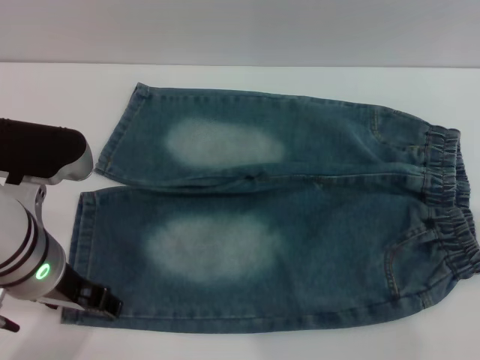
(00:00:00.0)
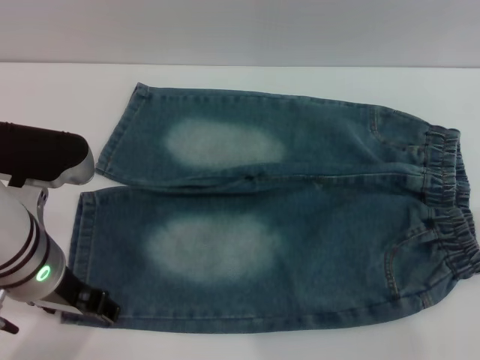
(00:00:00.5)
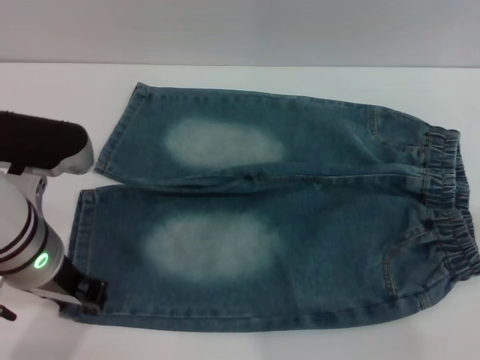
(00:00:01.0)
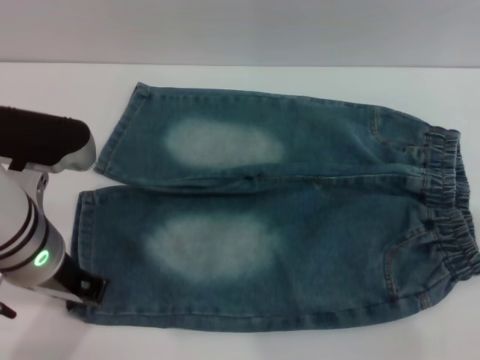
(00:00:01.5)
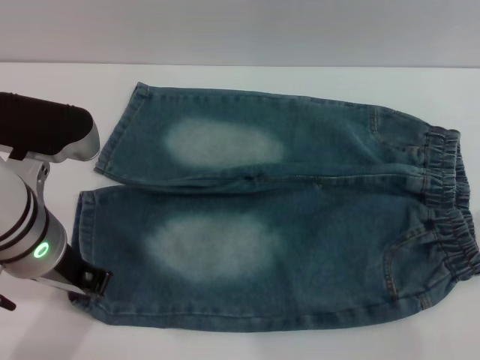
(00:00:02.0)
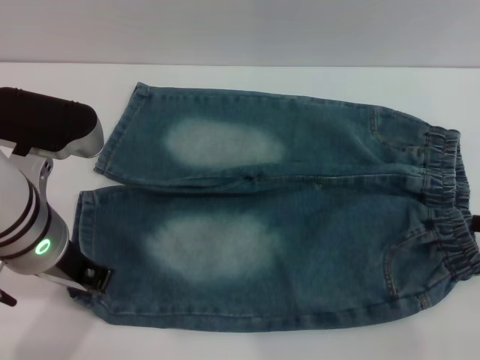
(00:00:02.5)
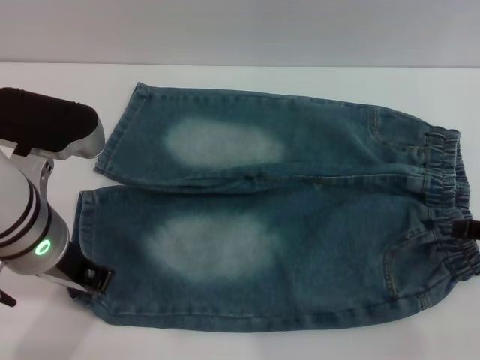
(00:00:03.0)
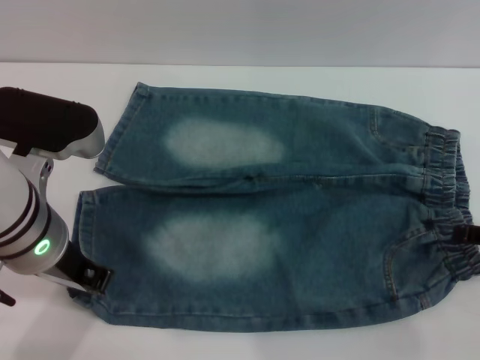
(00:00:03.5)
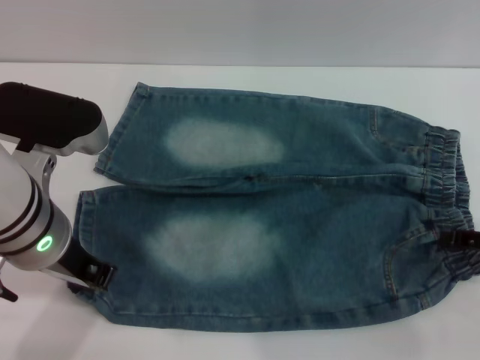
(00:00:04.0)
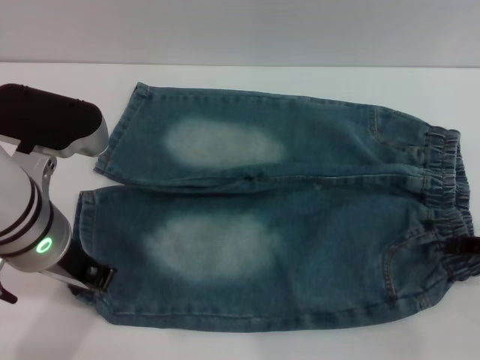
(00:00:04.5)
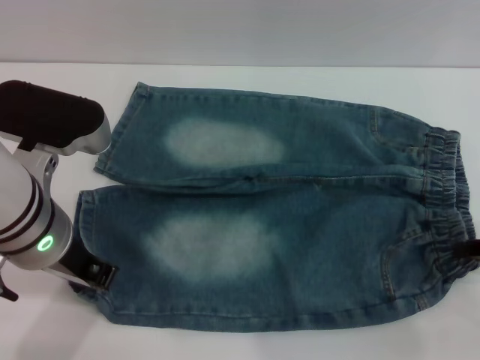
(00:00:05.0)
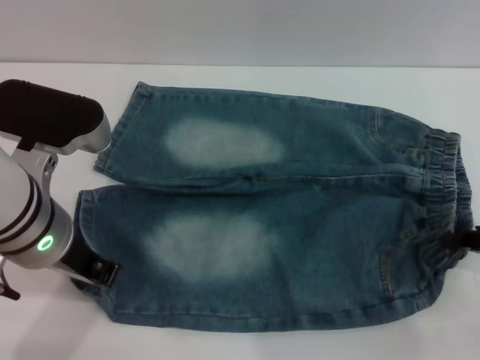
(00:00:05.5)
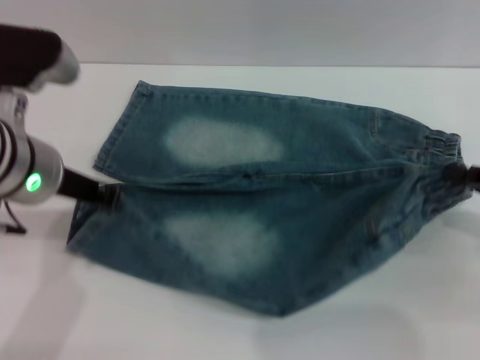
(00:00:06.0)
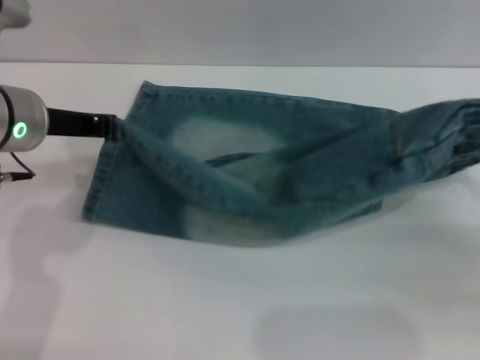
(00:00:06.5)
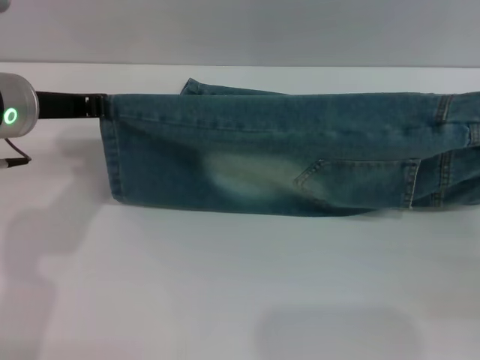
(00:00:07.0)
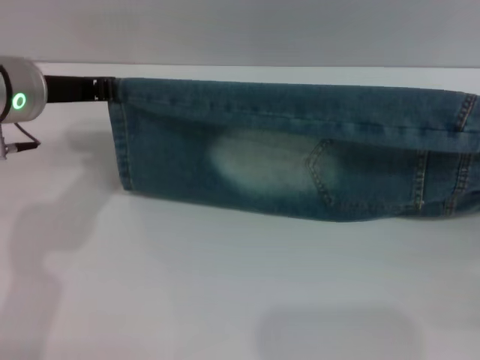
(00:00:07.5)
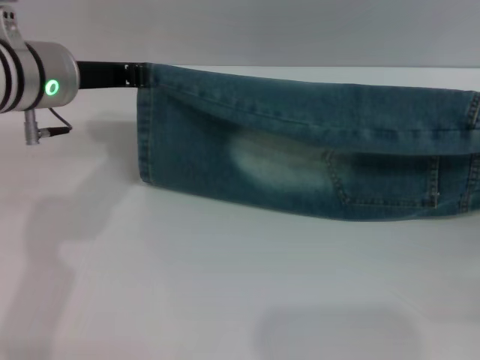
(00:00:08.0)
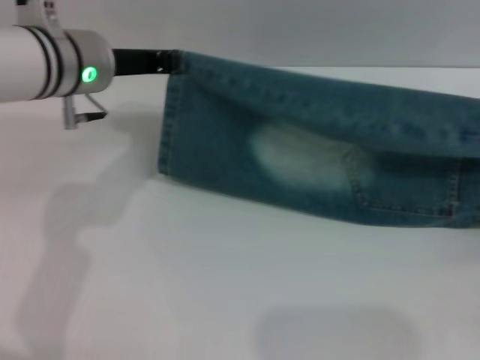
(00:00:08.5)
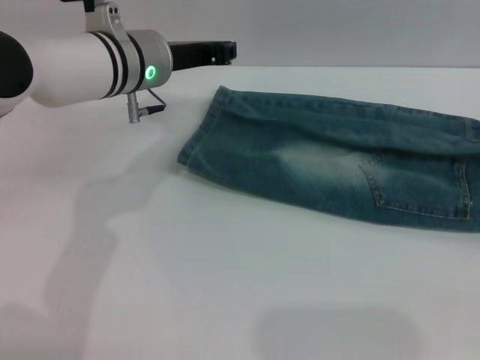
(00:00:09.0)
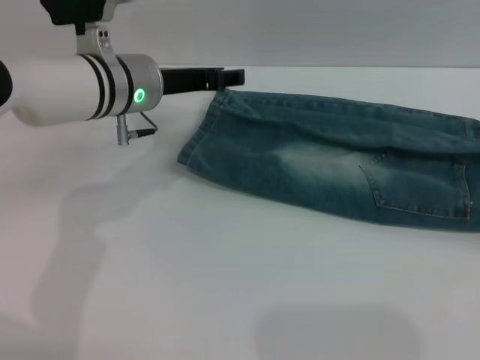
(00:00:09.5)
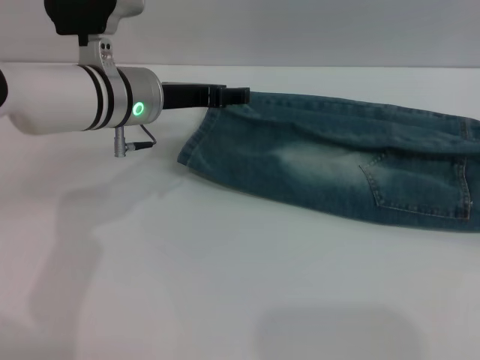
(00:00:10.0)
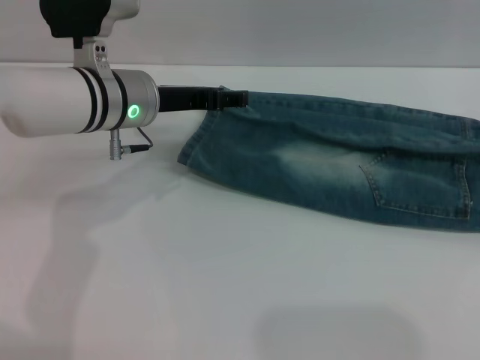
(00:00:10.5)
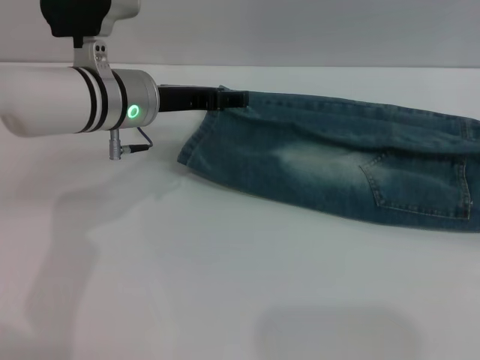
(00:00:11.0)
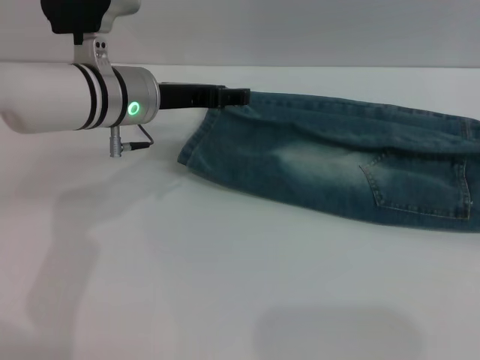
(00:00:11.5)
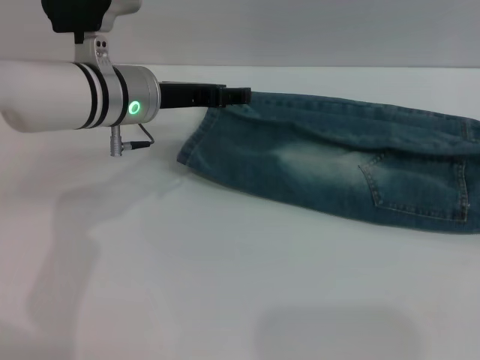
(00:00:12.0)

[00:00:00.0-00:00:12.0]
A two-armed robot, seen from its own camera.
Step, 00:00:00.0 to 00:00:09.0: Fold the bottom of the pants upward with both grippers.
00:00:00.0 to 00:00:02.0: The left gripper closes its fingers.
00:00:04.0 to 00:00:06.0: The right gripper closes.
00:00:06.0 to 00:00:08.0: The left gripper goes some 5 cm forward; the right gripper moves downward, about 5 cm.
00:00:08.0 to 00:00:10.0: The left gripper shifts about 10 cm downward and to the right, and opens its fingers. The right gripper shifts some 5 cm backward, and opens its fingers.

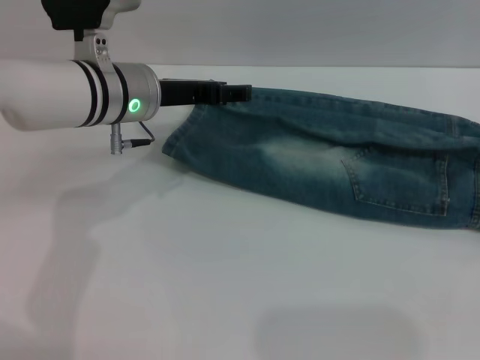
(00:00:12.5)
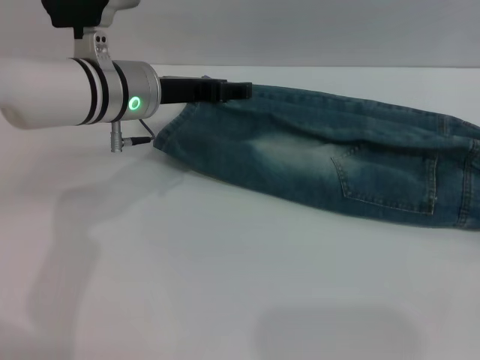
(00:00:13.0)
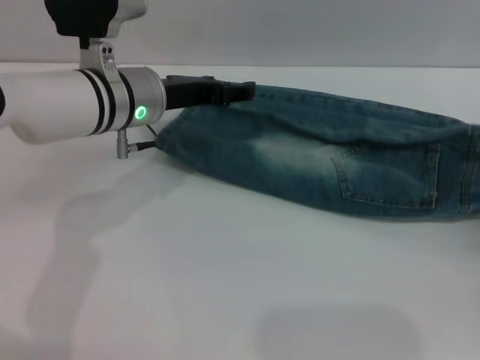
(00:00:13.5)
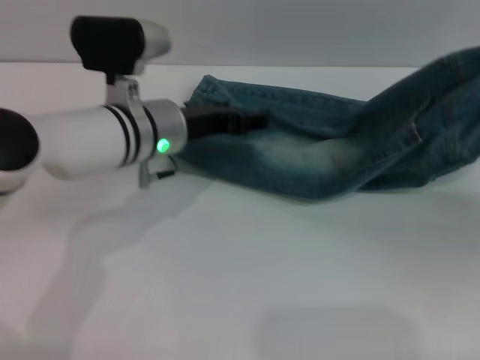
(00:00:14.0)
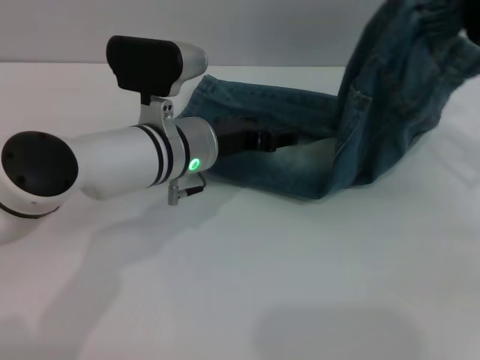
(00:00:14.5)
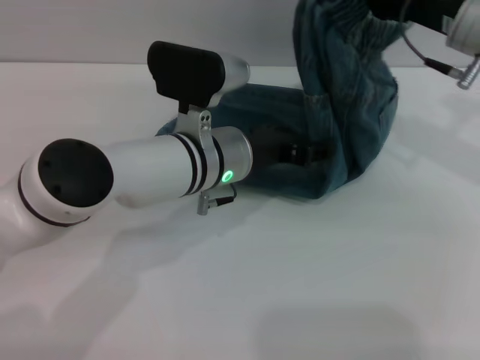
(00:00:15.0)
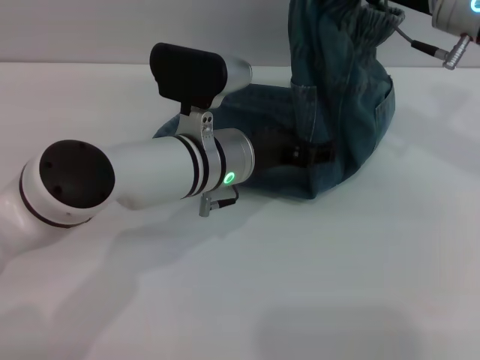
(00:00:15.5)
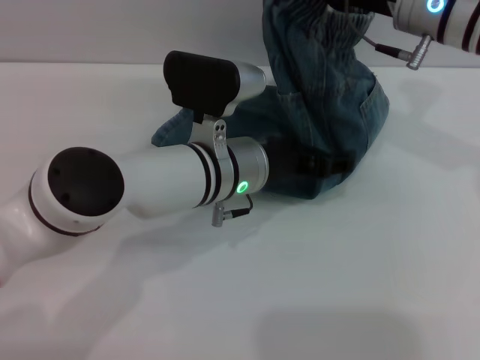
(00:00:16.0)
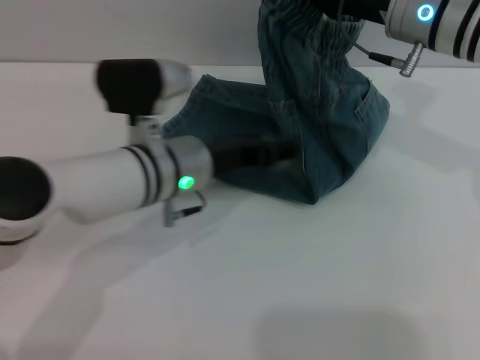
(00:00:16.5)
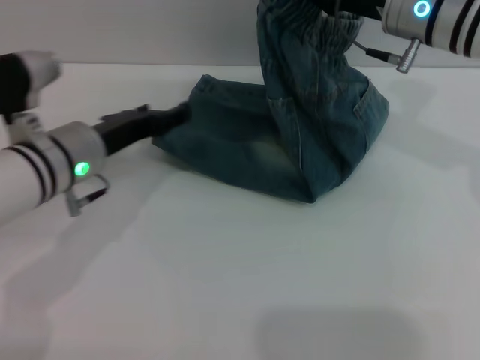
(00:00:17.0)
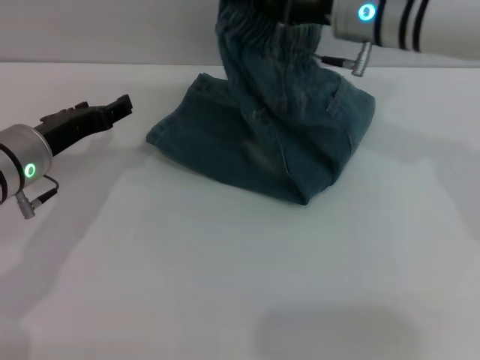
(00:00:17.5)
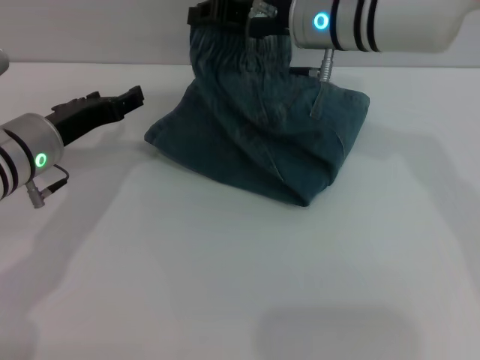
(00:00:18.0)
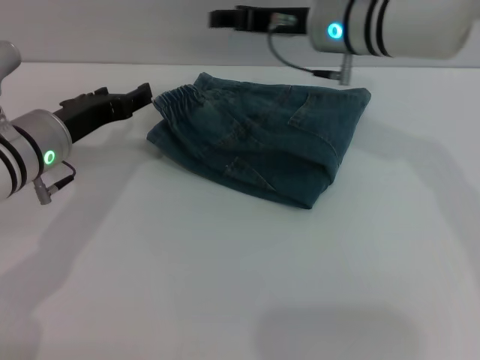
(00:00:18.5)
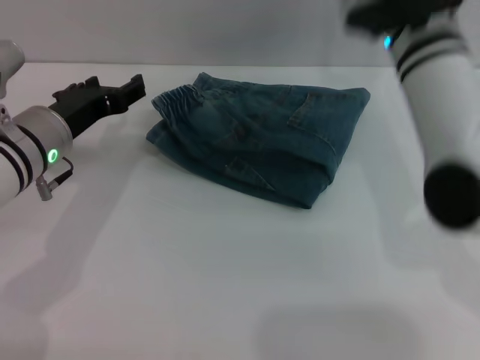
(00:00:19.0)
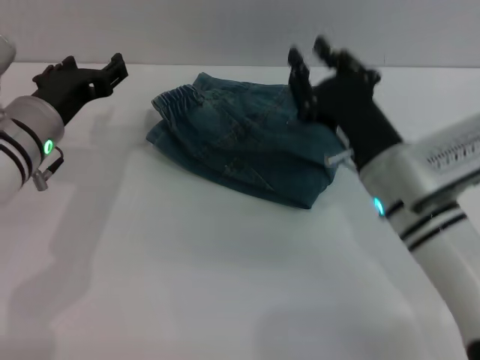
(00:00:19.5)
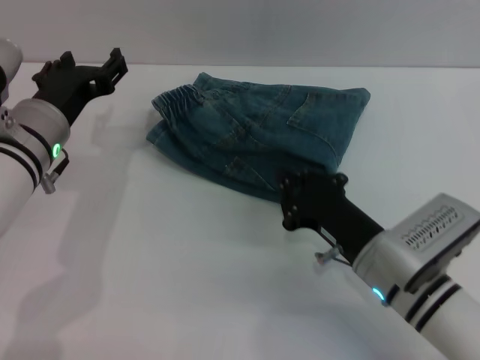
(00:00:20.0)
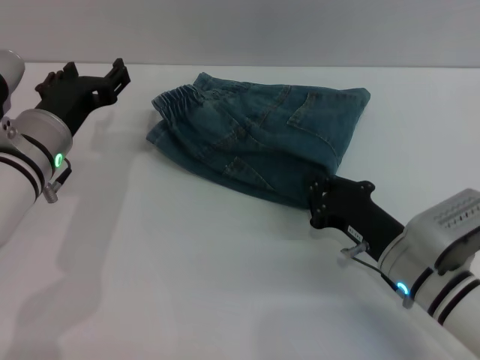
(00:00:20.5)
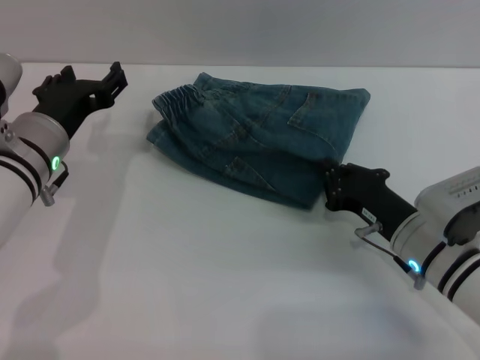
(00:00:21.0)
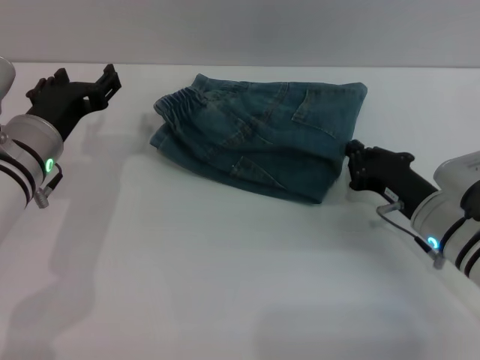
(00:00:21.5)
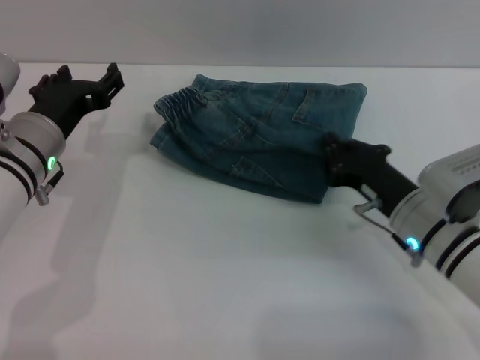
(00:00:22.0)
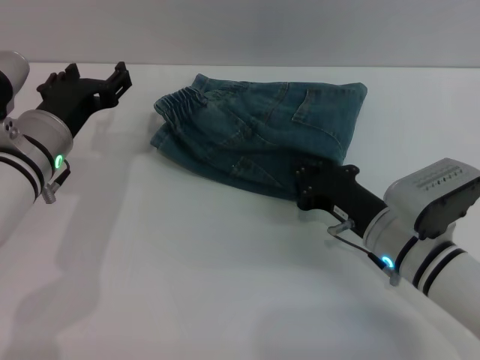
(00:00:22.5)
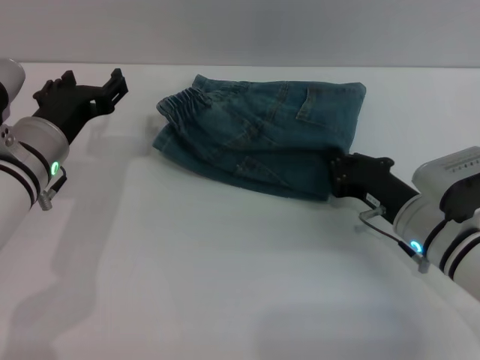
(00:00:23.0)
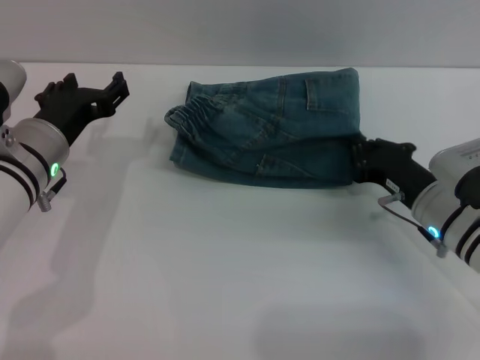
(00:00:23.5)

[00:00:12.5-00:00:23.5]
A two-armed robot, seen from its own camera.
Step, 00:00:12.5 to 00:00:18.0: Fold the pants from right to left with the right gripper.
00:00:12.5 to 00:00:14.5: The right gripper is displaced forward, upward and to the left by some 25 cm, and closes. Meanwhile the left gripper travels to the right by approximately 5 cm.
00:00:14.5 to 00:00:16.0: The left gripper moves about 5 cm. The right gripper shifts roughly 15 cm to the left and forward.
00:00:16.0 to 00:00:18.0: The right gripper heads to the left, covering roughly 10 cm; the left gripper shifts some 20 cm to the left.
00:00:18.0 to 00:00:20.0: The right gripper travels backward and downward by some 25 cm, and opens and closes again.
00:00:20.0 to 00:00:21.5: The right gripper travels to the right and forward by approximately 10 cm.
00:00:21.5 to 00:00:23.5: There are only small adjustments of the grippers.

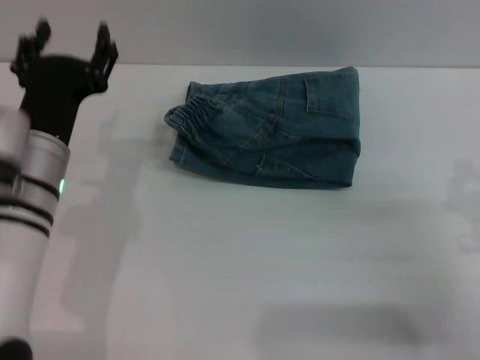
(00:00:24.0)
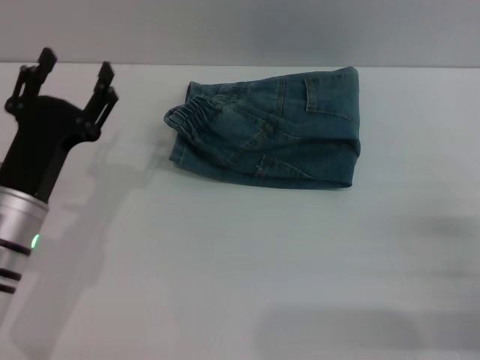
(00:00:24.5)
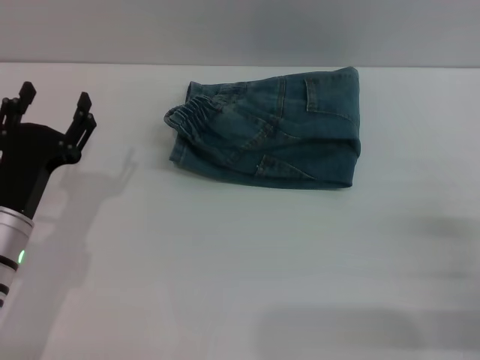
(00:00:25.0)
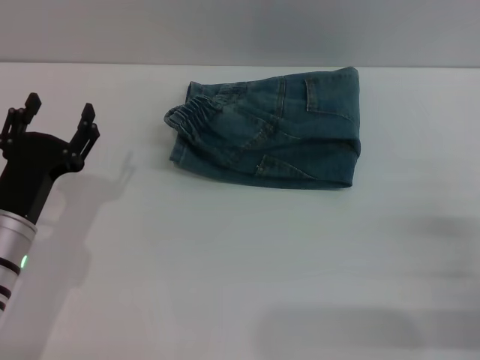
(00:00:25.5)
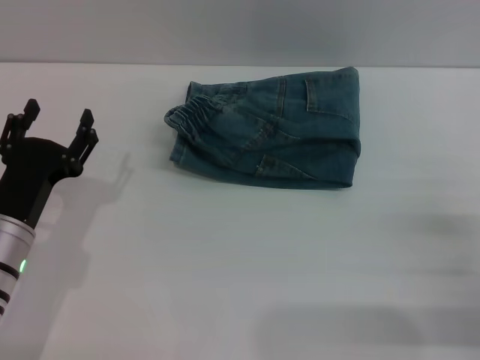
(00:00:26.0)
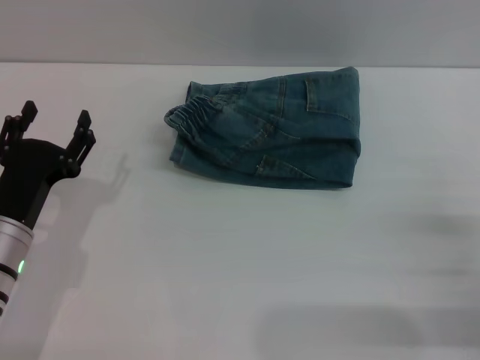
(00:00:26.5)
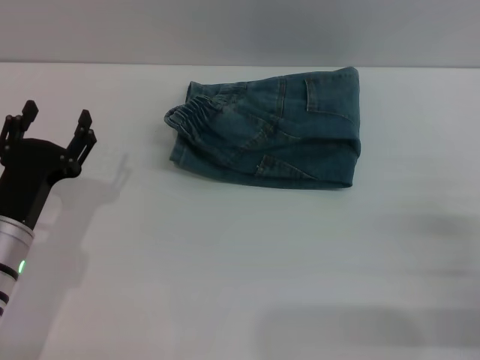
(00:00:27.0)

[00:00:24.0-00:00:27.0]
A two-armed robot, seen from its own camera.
00:00:24.0 to 00:00:25.5: The left gripper shifts about 10 cm downward and to the left; the right gripper ends up about 5 cm from where it was, and opens.
00:00:25.5 to 00:00:27.0: Neither gripper changes place.
